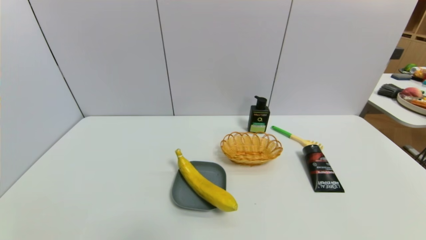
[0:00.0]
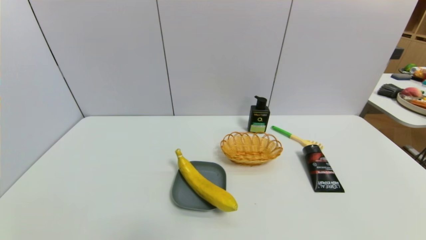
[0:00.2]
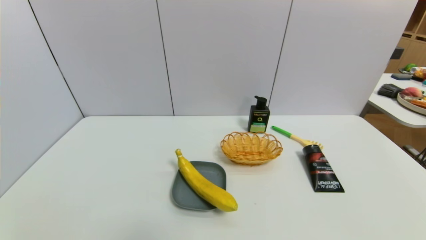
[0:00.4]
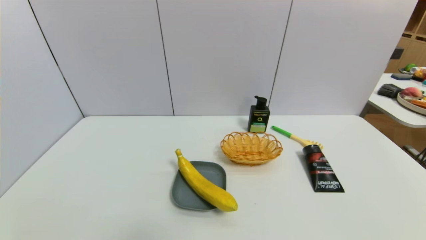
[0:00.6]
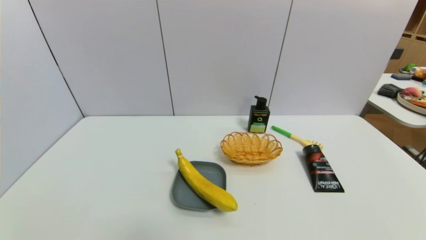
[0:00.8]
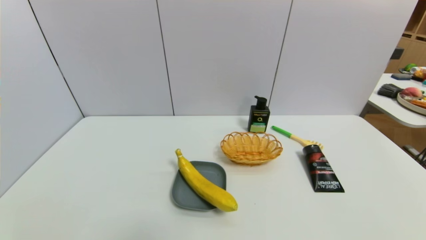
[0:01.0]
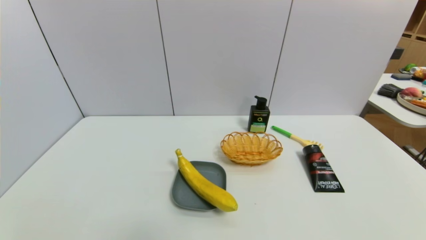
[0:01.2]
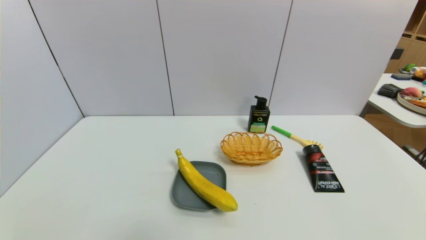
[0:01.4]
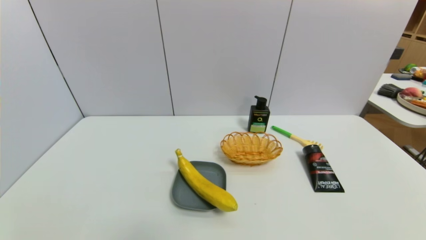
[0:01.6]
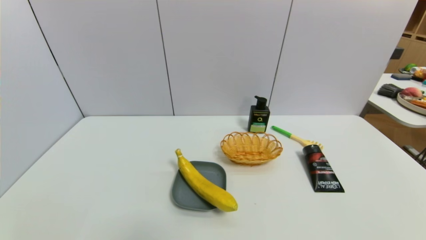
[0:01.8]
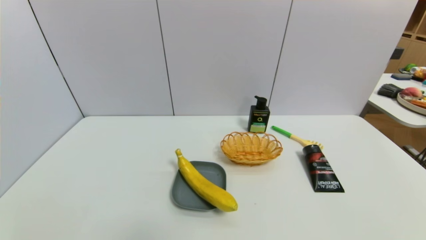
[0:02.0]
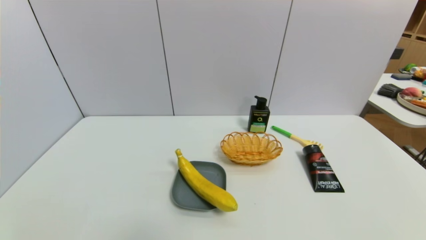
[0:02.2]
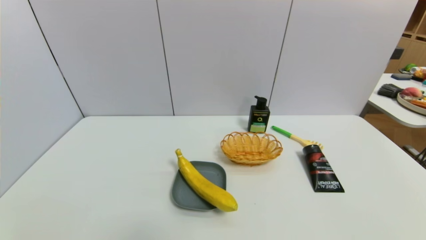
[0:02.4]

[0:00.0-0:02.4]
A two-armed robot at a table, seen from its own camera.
Task of the whole recording: use a gripper to pick the target object and place on the dish.
0:01.2 to 0:02.4: Neither gripper changes place.
